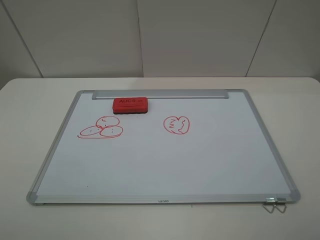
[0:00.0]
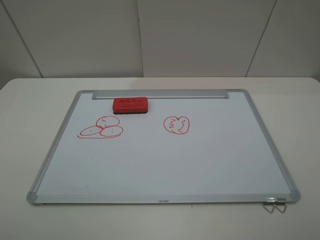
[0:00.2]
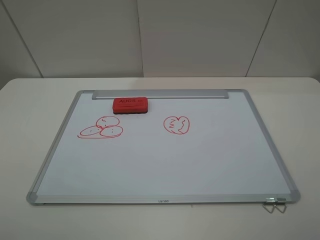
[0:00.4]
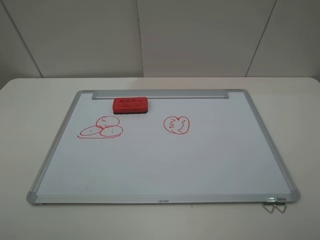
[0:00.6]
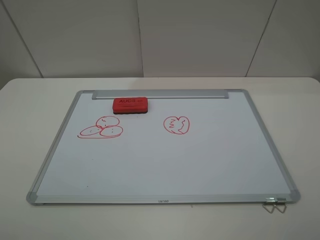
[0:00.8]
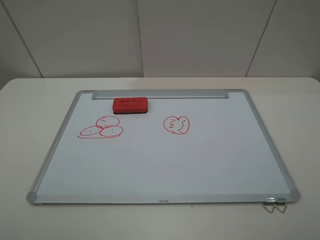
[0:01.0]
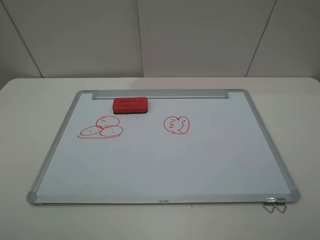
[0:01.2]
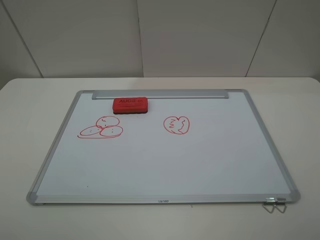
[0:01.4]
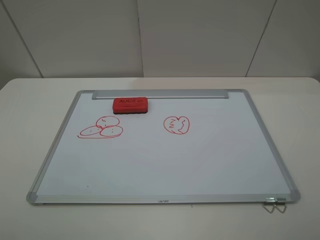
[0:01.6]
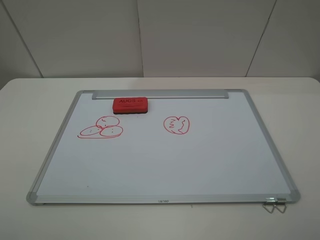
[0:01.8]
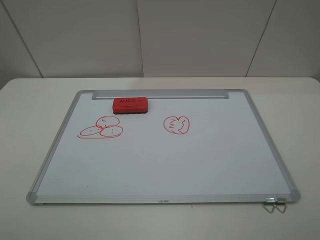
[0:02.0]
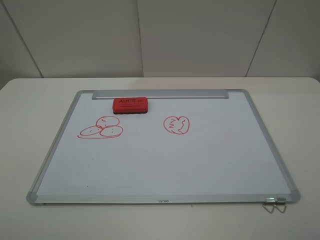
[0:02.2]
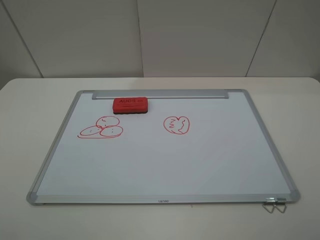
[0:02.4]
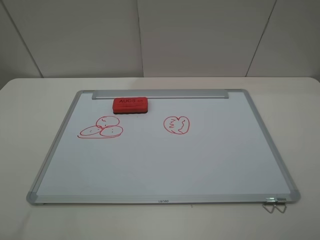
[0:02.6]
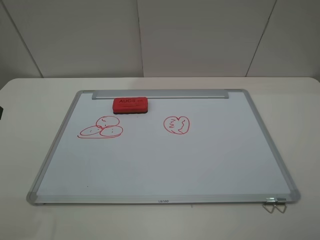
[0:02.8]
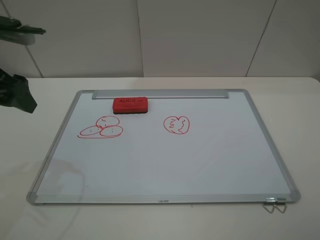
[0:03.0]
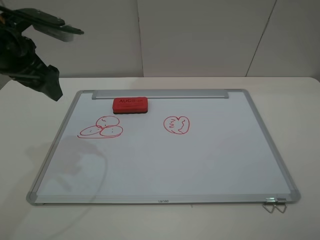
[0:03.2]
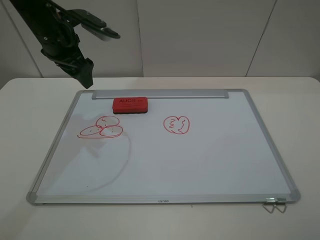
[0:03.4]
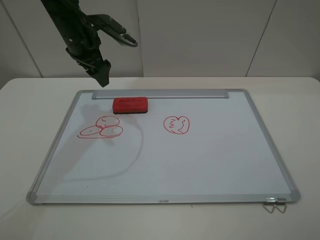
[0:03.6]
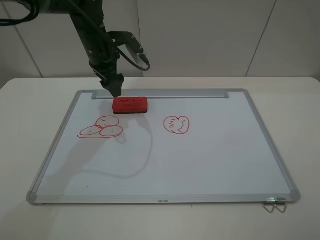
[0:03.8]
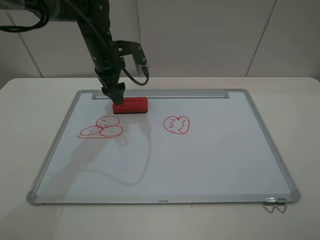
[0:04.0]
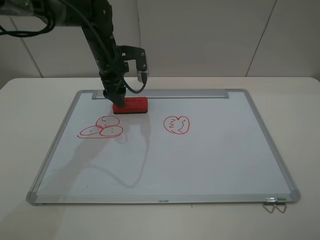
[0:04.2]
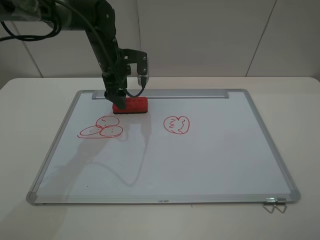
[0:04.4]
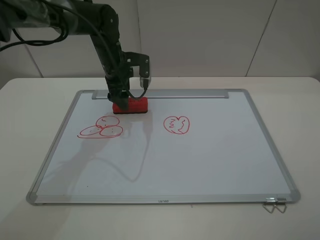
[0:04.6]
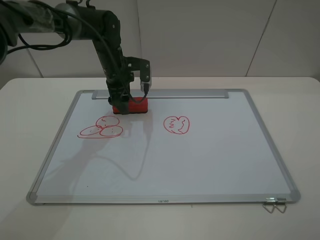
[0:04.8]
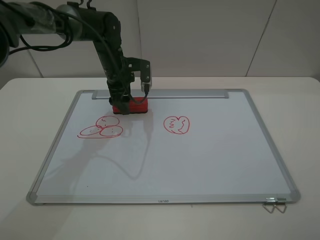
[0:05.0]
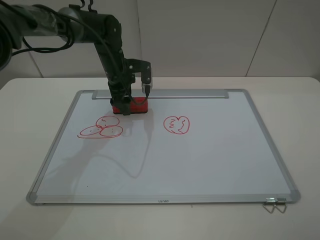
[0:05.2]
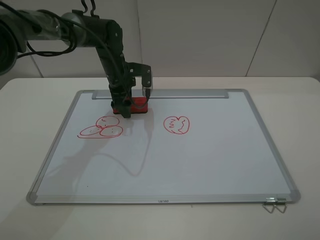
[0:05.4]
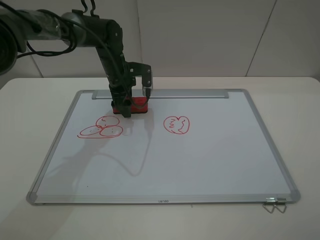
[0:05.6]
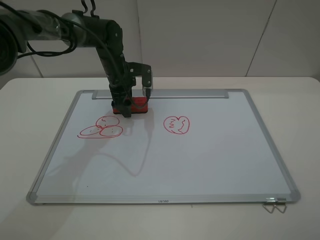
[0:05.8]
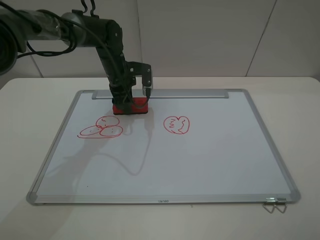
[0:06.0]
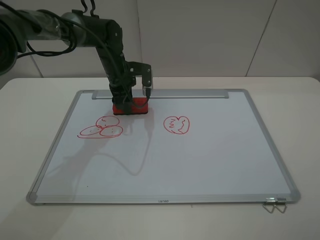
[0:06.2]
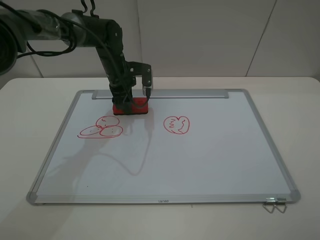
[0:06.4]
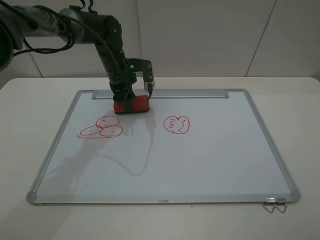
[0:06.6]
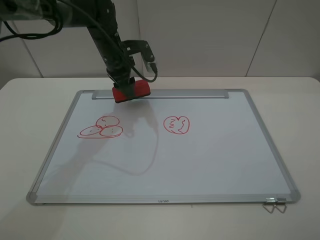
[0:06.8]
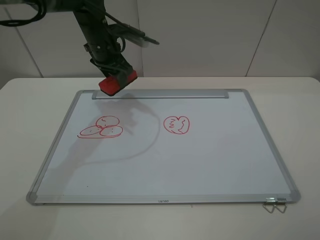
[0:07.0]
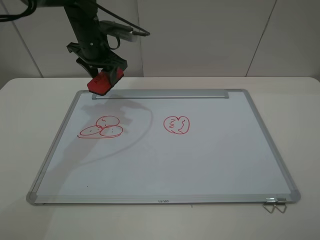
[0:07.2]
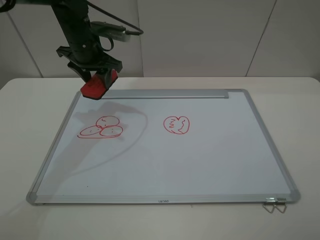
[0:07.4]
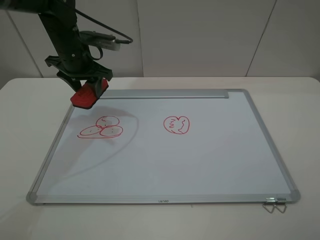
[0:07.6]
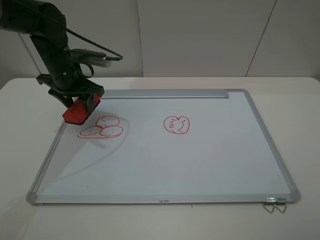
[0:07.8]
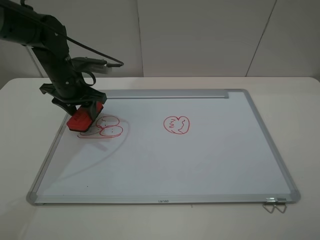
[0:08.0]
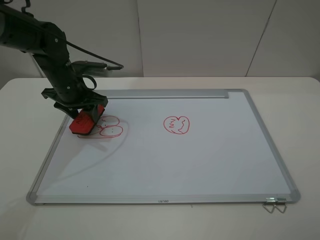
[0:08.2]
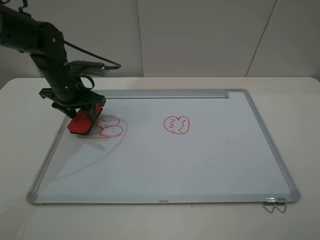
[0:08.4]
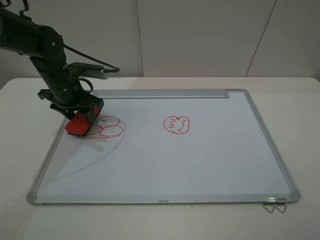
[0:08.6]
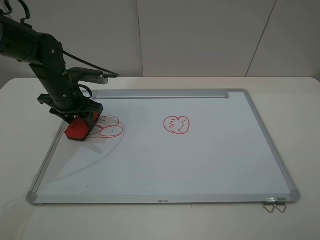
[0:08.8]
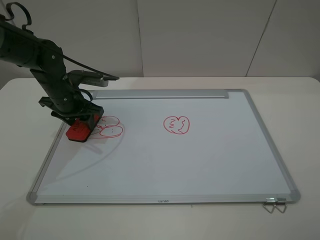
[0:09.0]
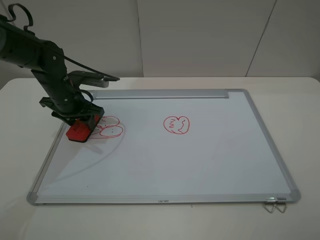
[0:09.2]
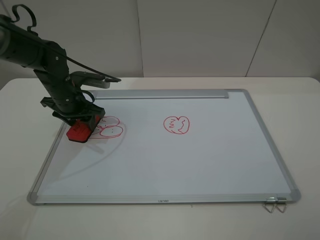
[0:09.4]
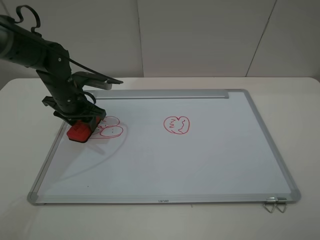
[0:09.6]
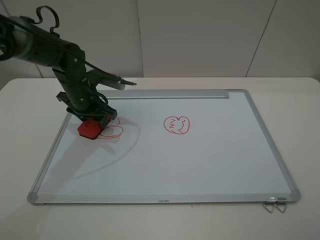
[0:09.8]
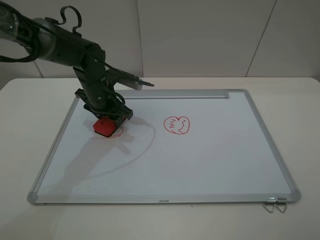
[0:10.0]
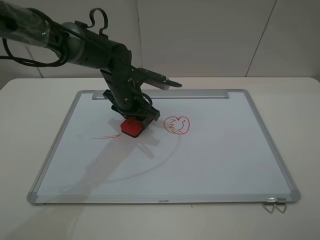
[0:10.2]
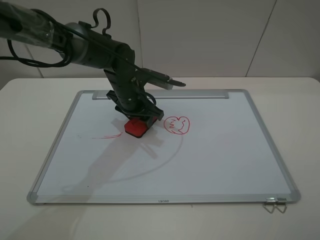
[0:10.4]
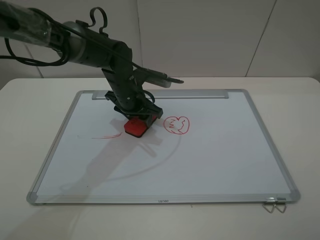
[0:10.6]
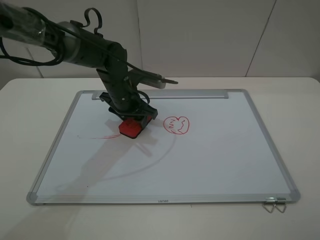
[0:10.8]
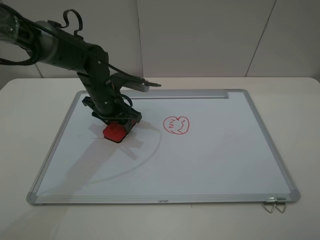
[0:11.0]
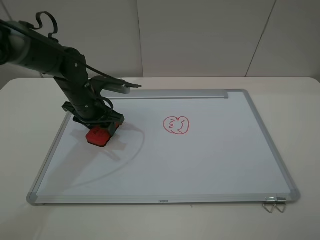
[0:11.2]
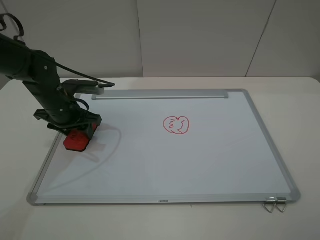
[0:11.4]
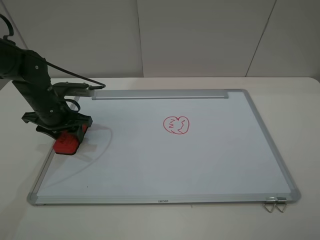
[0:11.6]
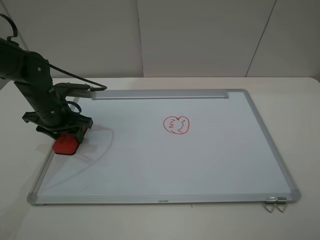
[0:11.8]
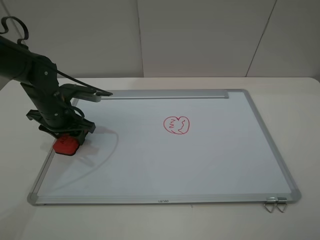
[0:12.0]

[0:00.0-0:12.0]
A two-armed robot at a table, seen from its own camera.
Step, 0:00.0 to 0:06.0: Grasp the eraser with the left gripper.
0:00.0 to 0:01.6: The two grippers keep their place.
0:01.6 to 0:03.0: The left gripper travels forward by approximately 25 cm.
0:03.0 to 0:04.4: The left gripper is displaced forward, to the right and downward by approximately 30 cm.
0:04.4 to 0:06.0: The left gripper closes its fingers.
0:06.0 to 0:07.6: The left gripper shifts roughly 10 cm upward and to the left.
0:07.6 to 0:09.0: The left gripper heads downward, covering some 10 cm.
0:09.0 to 0:10.4: The left gripper is displaced to the right by roughly 15 cm.
0:10.4 to 0:12.0: The left gripper travels to the left by roughly 15 cm.

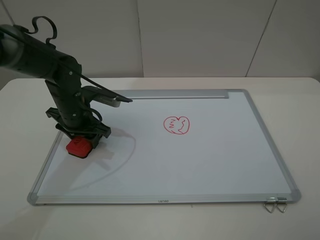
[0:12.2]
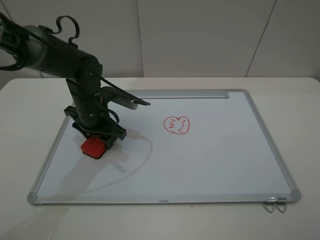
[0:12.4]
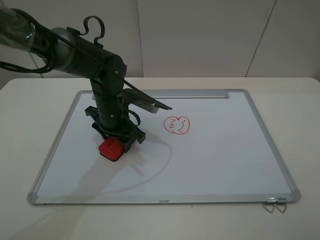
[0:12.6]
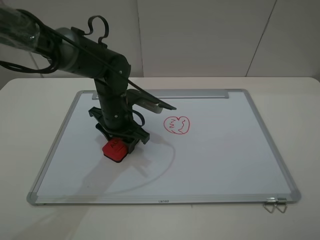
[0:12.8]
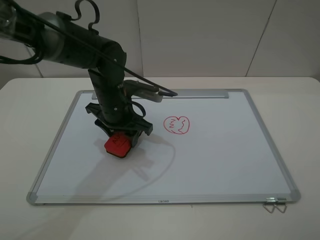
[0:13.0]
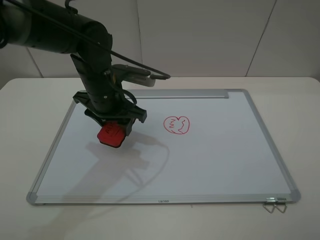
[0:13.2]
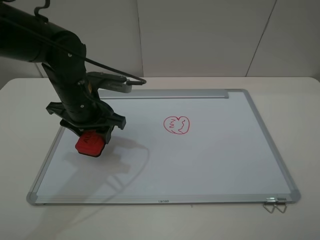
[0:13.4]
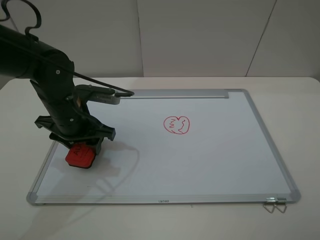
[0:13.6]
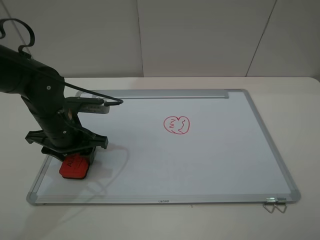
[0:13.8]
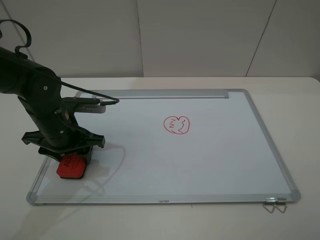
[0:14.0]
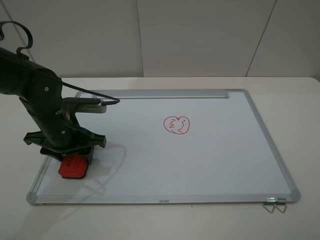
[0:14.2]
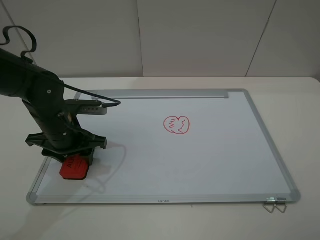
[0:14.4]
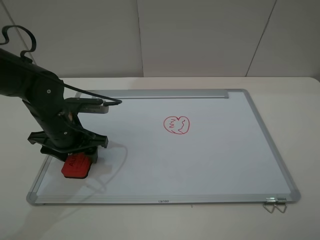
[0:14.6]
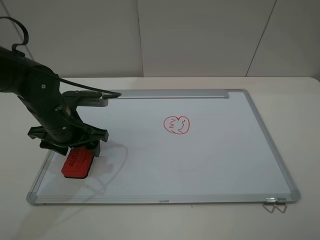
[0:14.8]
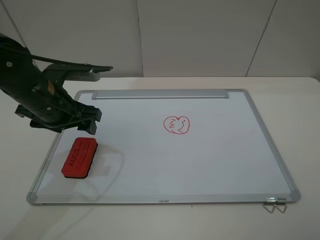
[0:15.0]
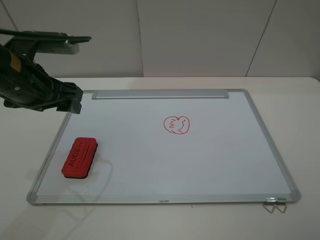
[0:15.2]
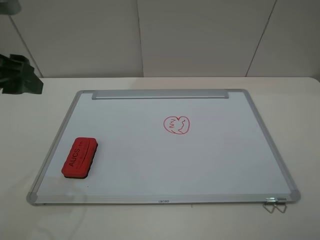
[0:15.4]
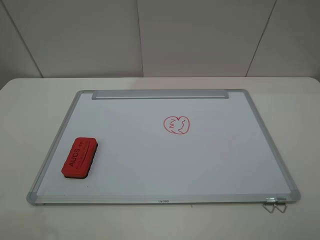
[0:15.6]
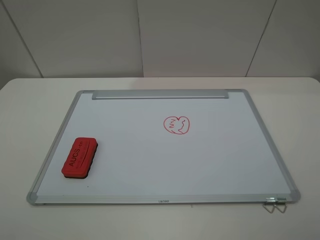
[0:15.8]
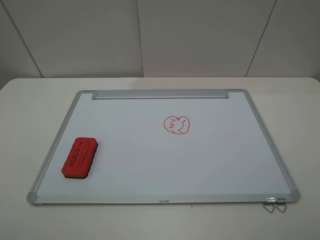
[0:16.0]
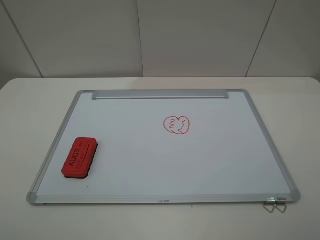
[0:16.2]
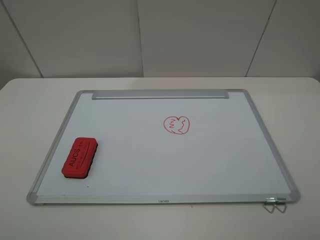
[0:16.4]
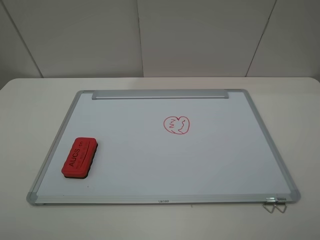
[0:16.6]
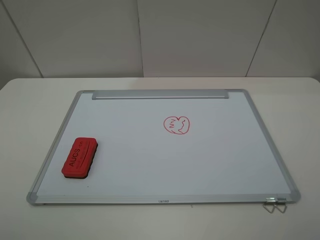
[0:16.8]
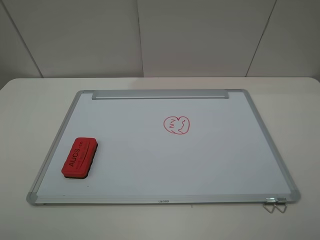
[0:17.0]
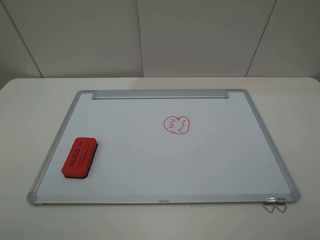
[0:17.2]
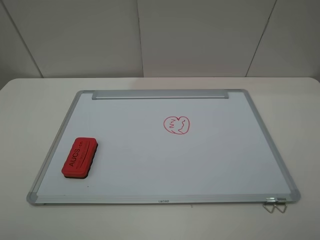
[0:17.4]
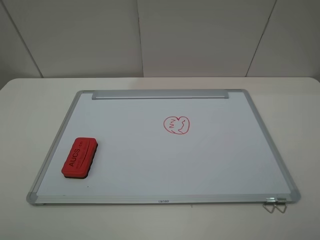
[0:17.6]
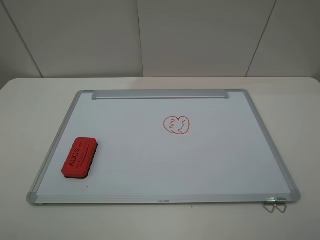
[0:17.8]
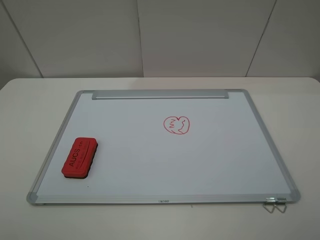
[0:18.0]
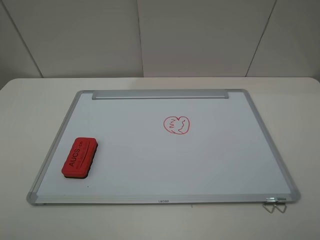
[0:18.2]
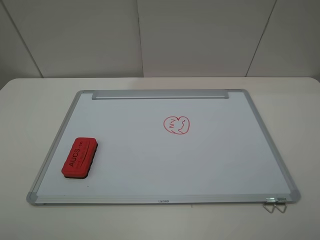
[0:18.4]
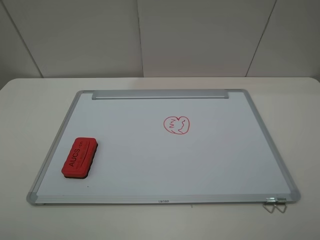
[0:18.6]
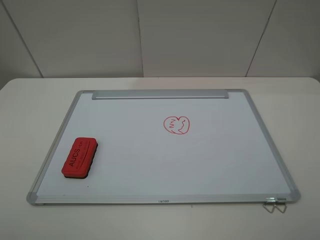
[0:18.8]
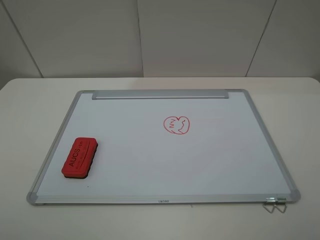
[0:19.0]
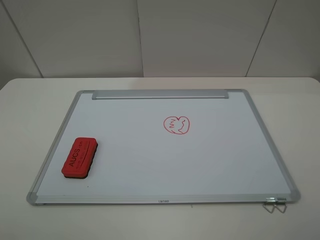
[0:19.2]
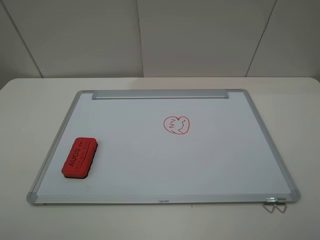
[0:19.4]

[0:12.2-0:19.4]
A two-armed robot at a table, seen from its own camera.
Step, 0:13.2 to 0:14.8: Place the eraser with the left gripper.
0:12.2 to 0:13.6: The left gripper moves upward, approximately 5 cm, and goes to the right and returns, roughly 10 cm each way.
0:13.6 to 0:15.0: The left gripper opens.
0:15.0 to 0:16.6: The left gripper heads backward, upward and to the left, covering about 30 cm.

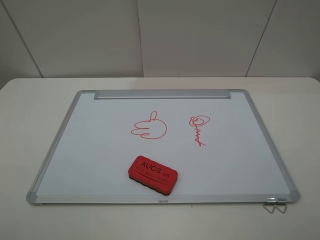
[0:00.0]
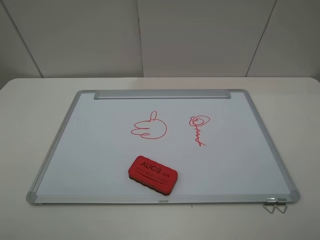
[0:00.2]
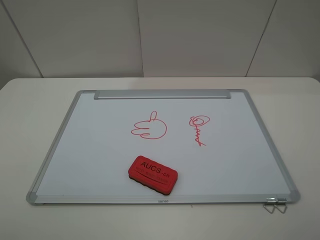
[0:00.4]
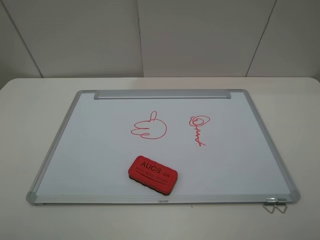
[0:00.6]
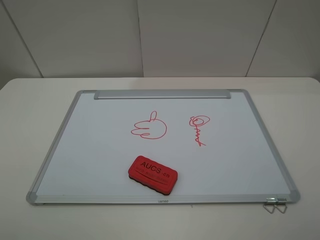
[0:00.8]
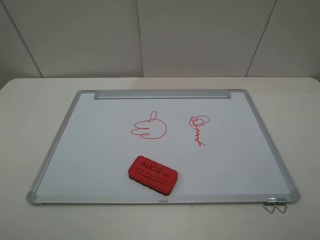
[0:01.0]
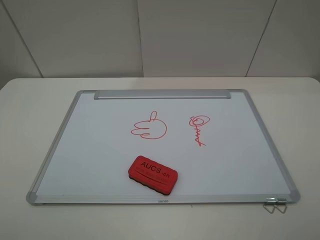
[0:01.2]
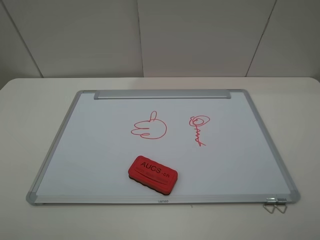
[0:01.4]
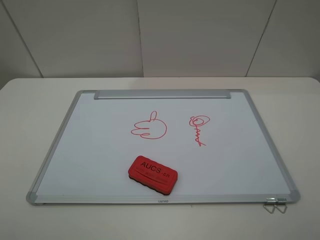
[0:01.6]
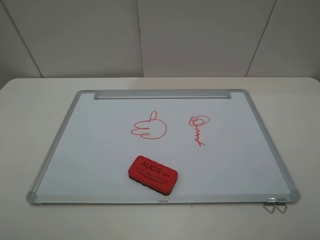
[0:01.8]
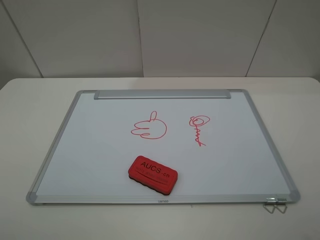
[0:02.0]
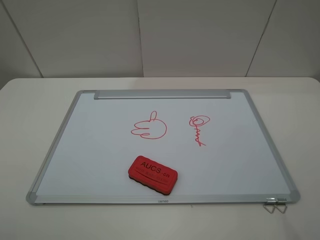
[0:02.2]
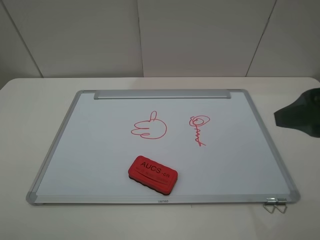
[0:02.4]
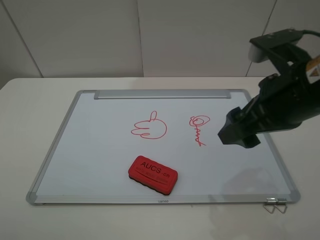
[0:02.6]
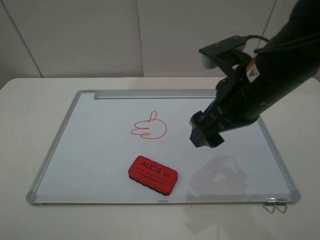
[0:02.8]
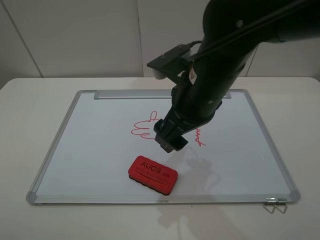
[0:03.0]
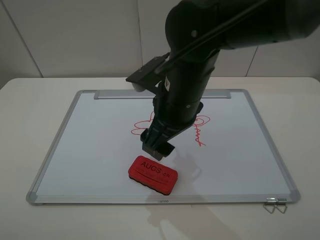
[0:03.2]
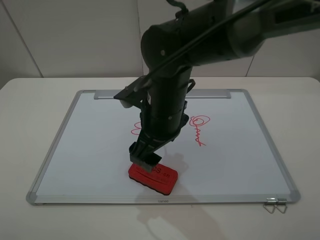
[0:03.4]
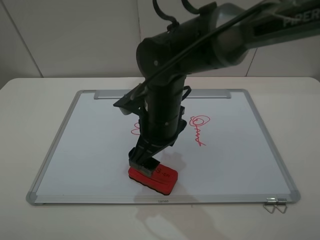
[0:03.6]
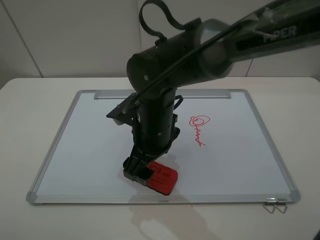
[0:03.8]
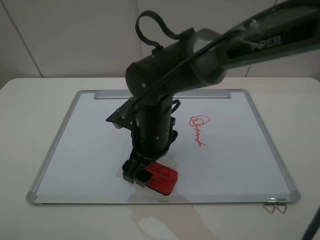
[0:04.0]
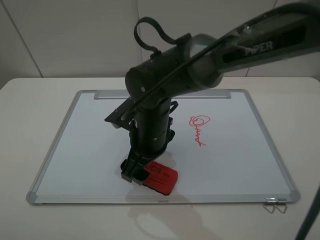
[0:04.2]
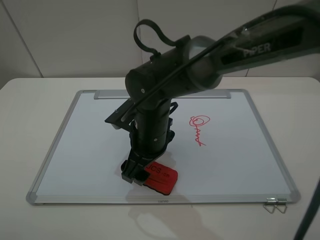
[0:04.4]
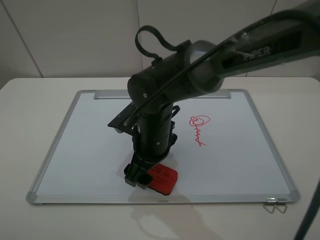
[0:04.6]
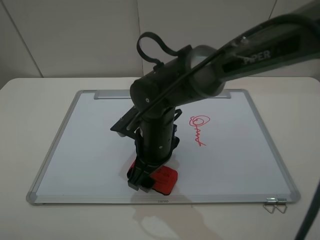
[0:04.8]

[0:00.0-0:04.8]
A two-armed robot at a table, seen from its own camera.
0:00.0 to 0:01.6: Neither gripper changes place.
0:01.6 to 0:03.2: The right gripper travels to the left and forward by approximately 35 cm.
0:03.2 to 0:04.8: The right gripper goes approximately 10 cm downward.
